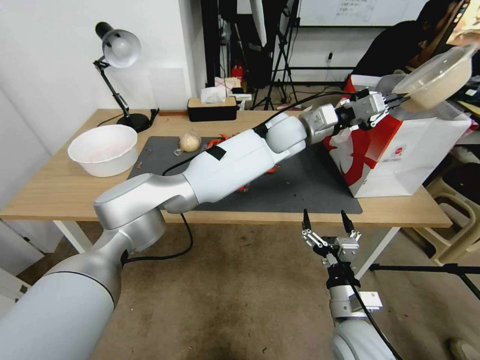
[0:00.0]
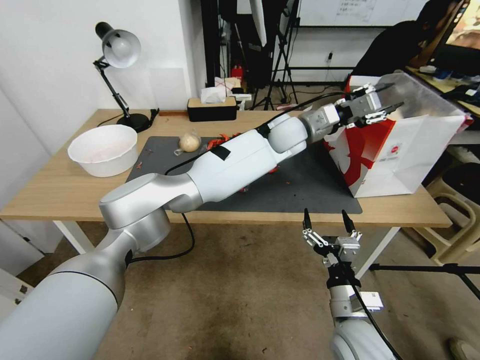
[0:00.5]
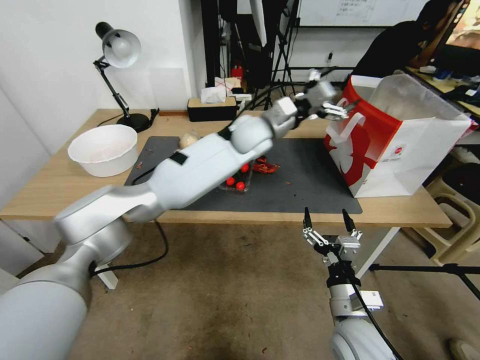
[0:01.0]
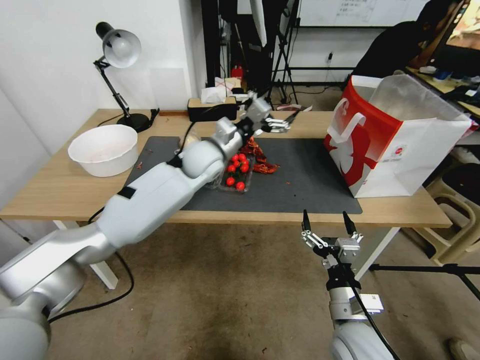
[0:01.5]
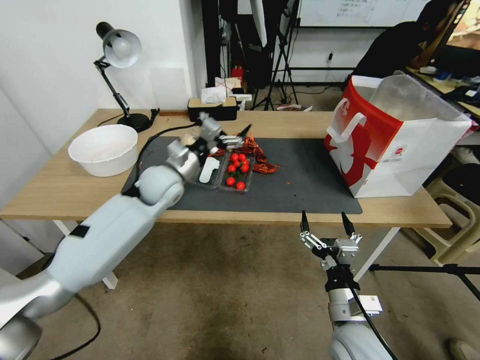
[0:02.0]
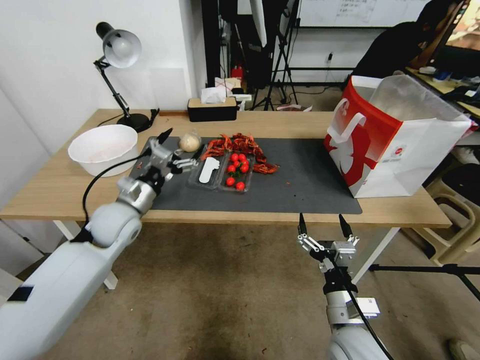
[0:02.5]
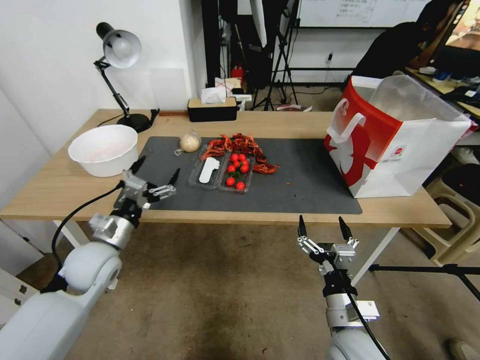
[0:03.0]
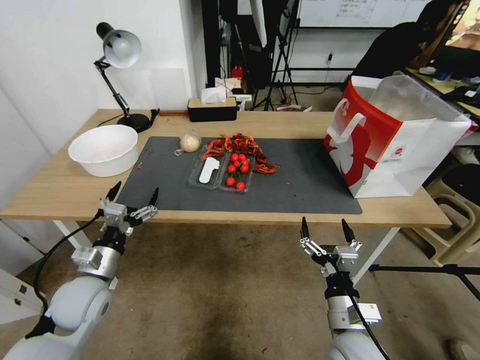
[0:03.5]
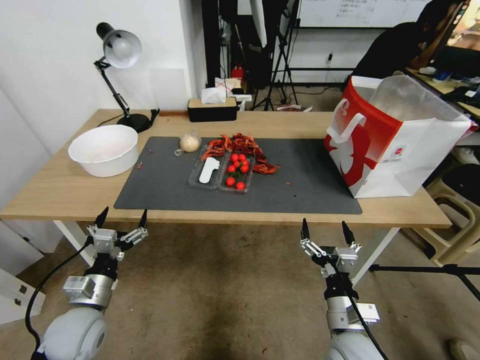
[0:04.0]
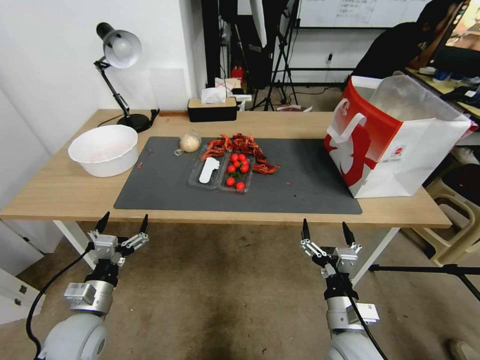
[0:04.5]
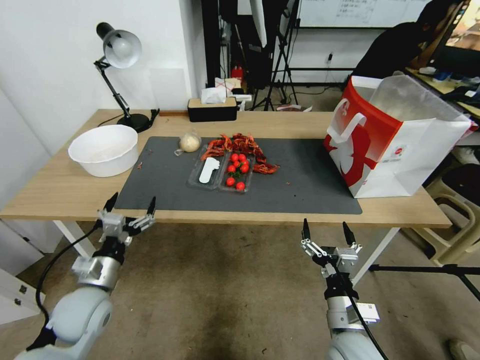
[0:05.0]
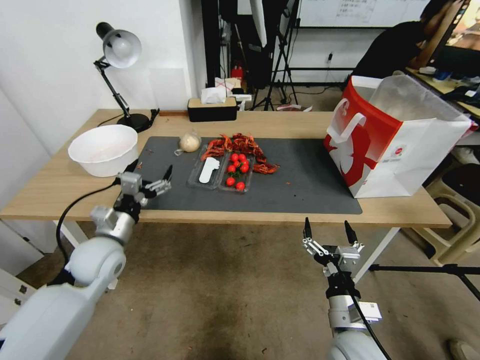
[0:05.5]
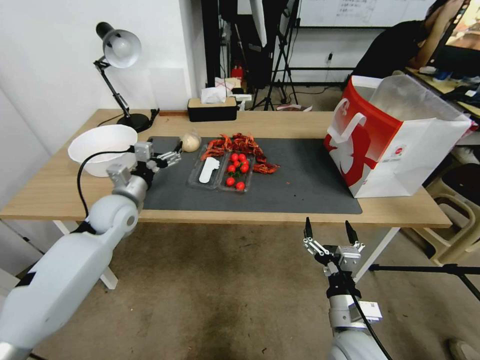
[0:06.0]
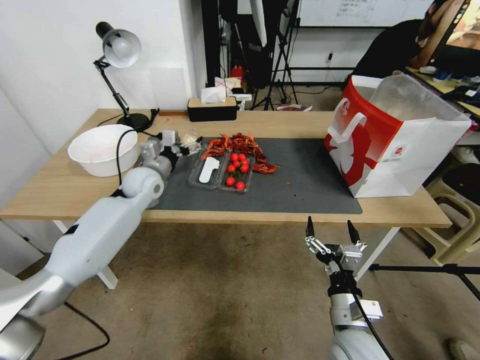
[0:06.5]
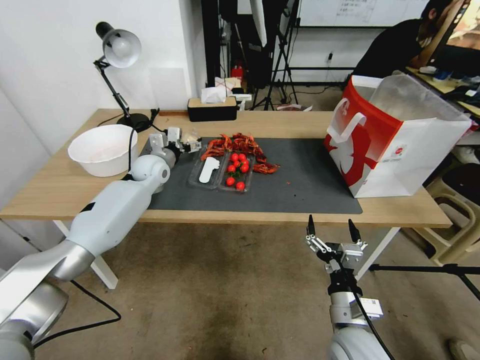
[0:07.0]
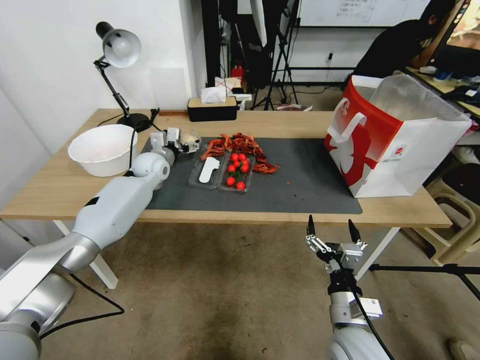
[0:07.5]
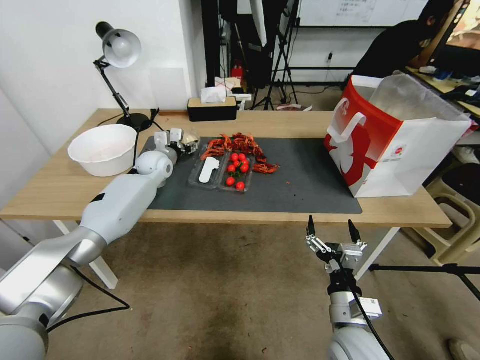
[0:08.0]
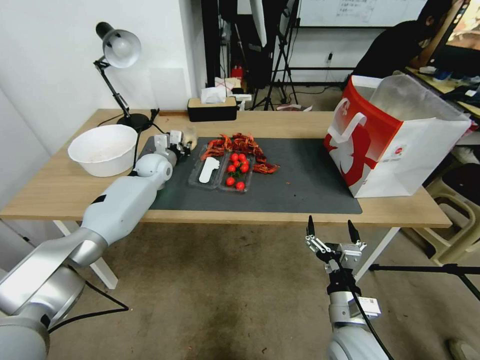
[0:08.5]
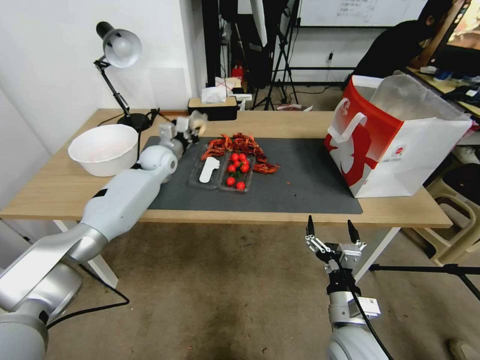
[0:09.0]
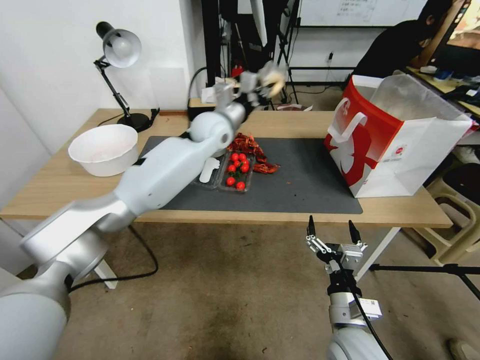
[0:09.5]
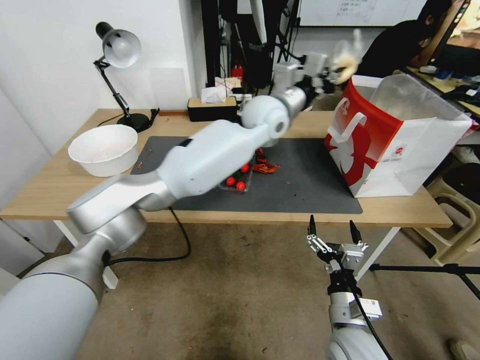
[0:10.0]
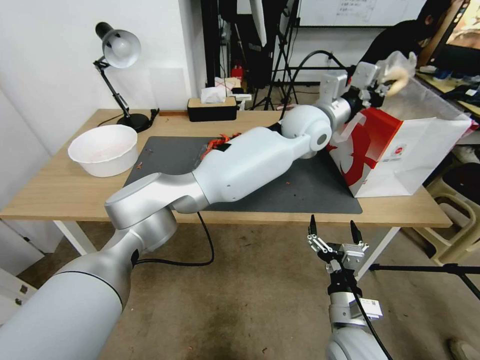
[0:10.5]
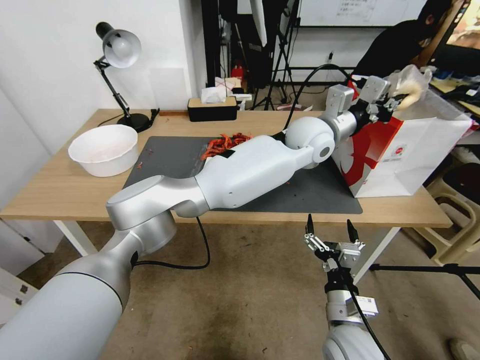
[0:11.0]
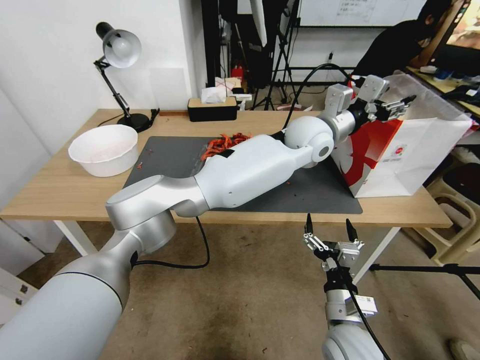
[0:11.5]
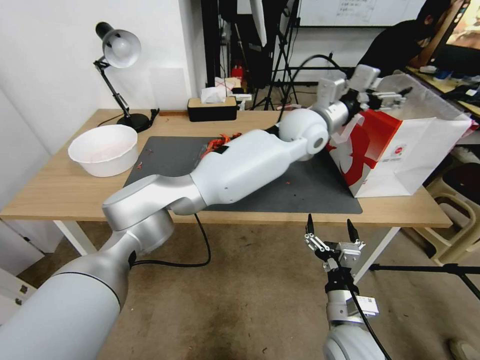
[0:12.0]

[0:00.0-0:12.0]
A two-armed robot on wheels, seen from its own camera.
0:00.0 to 0:02.0: The left gripper goes approximately 30 cm to the left, and opens its fingers.
0:02.0 to 0:04.0: The left gripper moves backward, downward and to the left, approximately 30 cm.
0:04.0 to 0:06.0: The left gripper goes some 15 cm forward and upward.
0:06.0 to 0:08.0: The left gripper moves forward, some 25 cm.
0:08.0 to 0:10.0: The left gripper travels to the right and upward by about 35 cm, and closes.
0:10.0 to 0:12.0: The left gripper heads to the right, covering approximately 10 cm, and opens up.

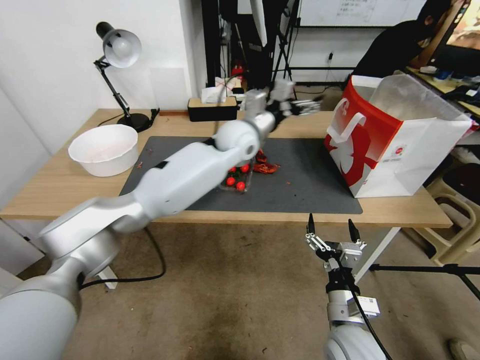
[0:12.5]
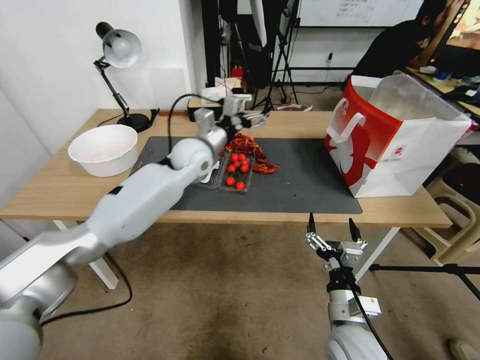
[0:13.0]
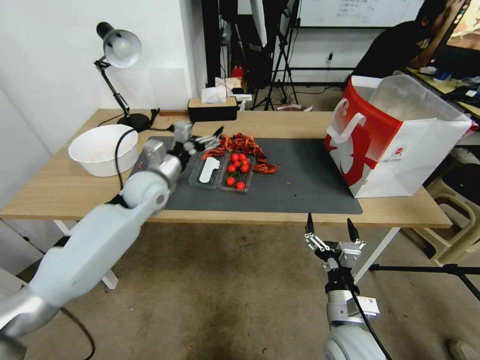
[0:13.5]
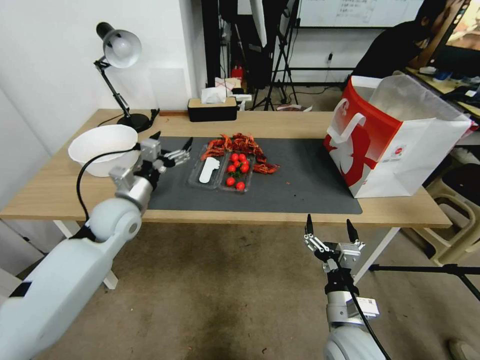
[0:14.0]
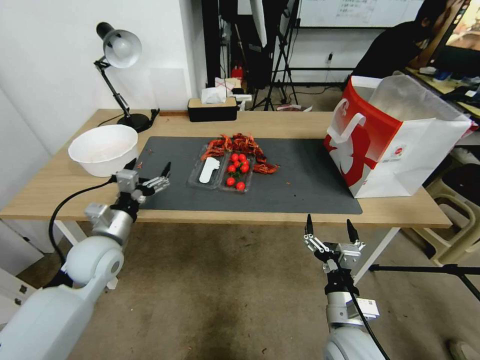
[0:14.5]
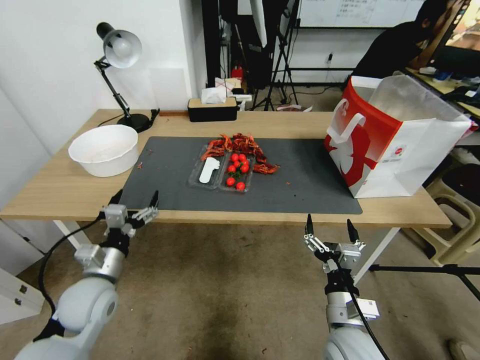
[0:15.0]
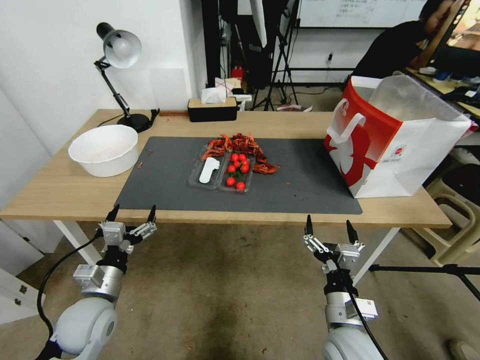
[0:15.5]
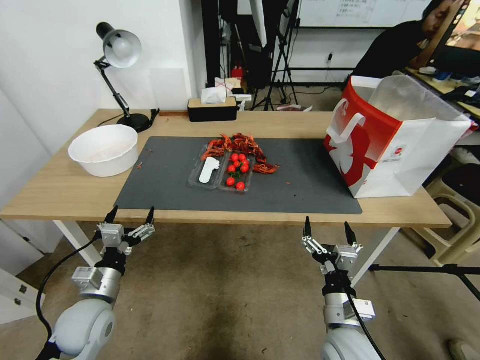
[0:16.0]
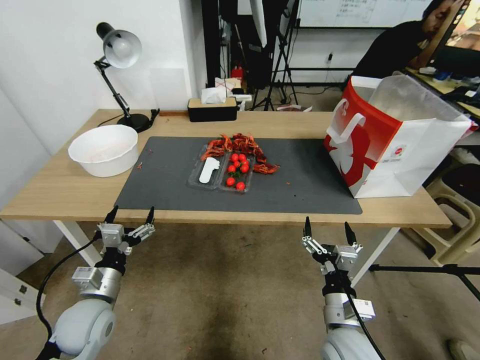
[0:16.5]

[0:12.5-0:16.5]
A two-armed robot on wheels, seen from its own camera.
0:12.5 to 0:14.5: The left gripper heads to the left, backward and downward, covering roughly 50 cm.
0:14.5 to 0:16.5: The left gripper goes some 10 cm backward and downward.

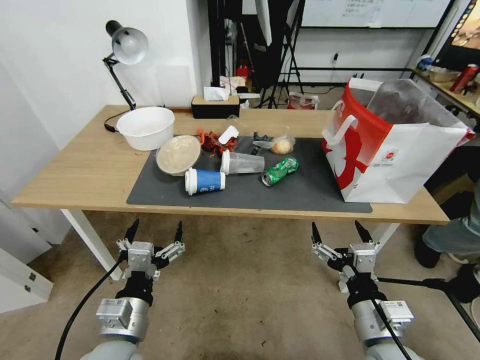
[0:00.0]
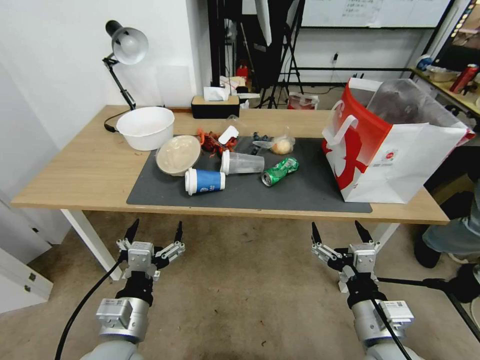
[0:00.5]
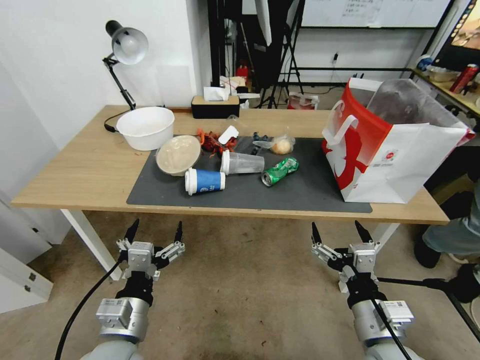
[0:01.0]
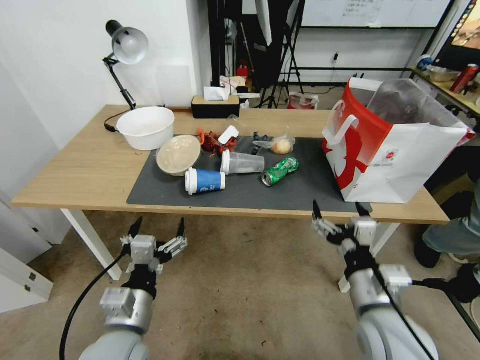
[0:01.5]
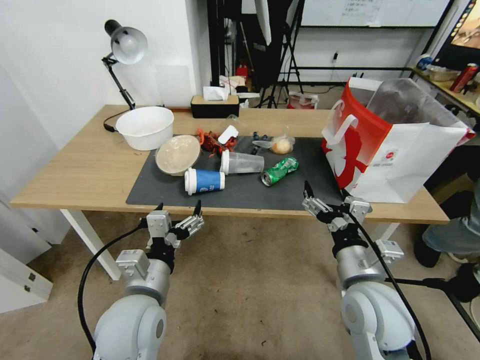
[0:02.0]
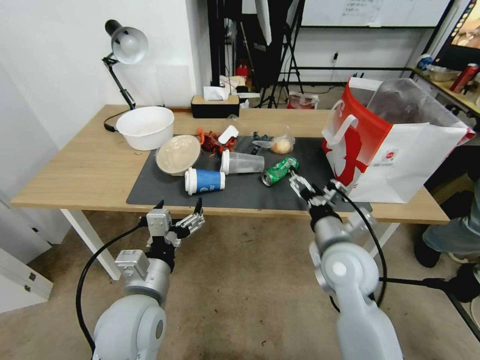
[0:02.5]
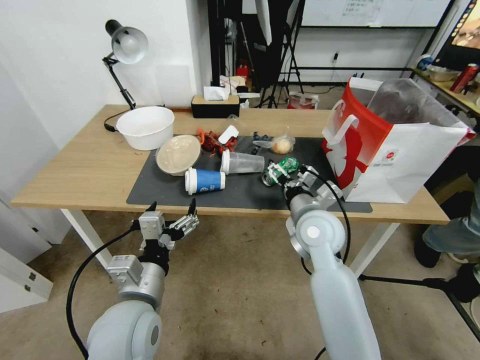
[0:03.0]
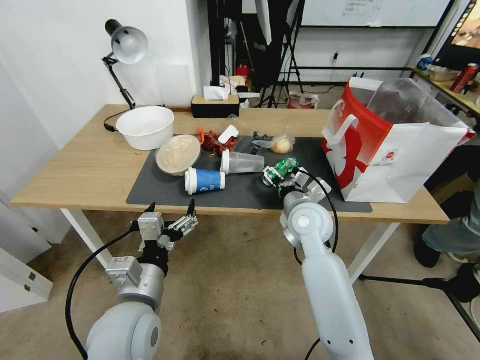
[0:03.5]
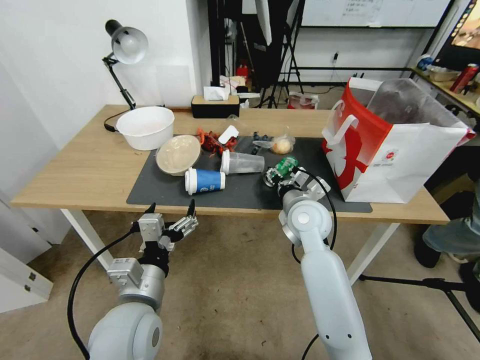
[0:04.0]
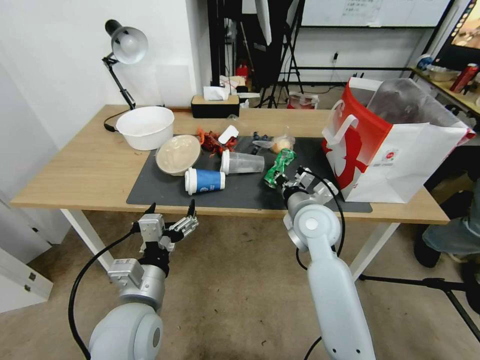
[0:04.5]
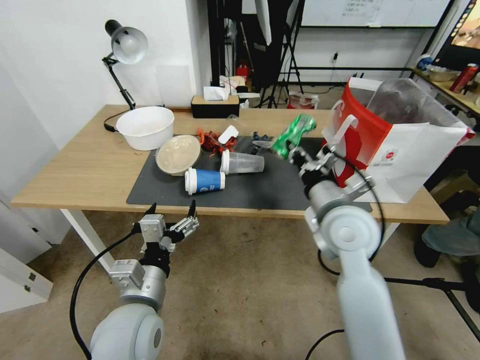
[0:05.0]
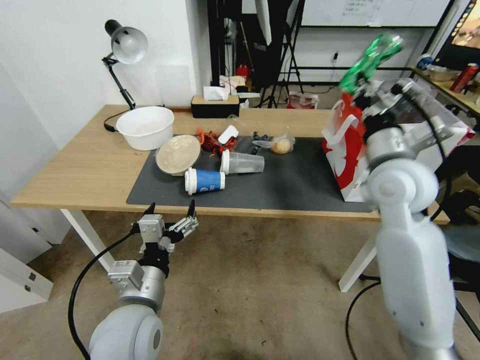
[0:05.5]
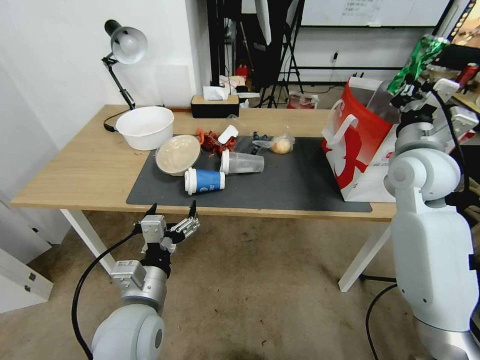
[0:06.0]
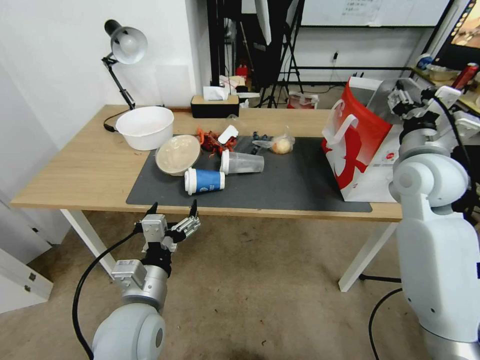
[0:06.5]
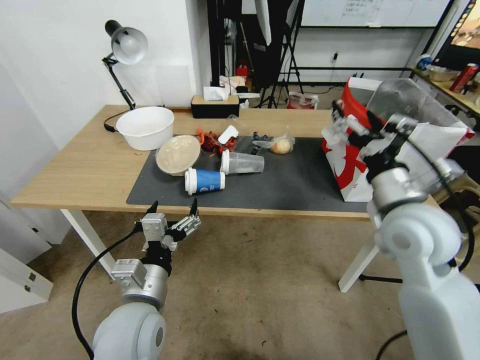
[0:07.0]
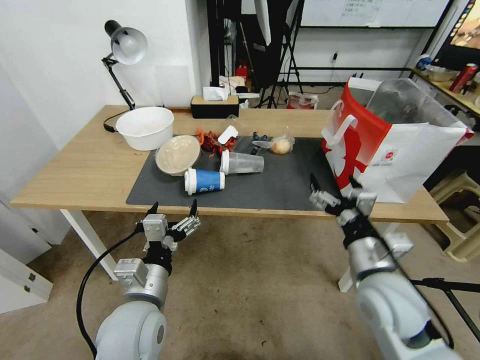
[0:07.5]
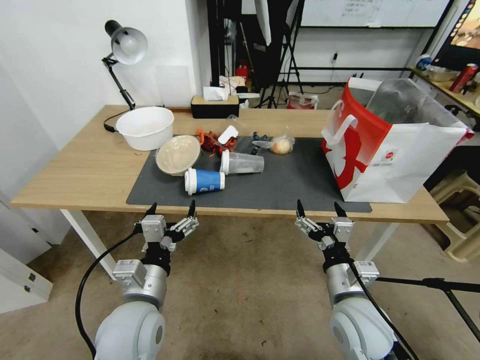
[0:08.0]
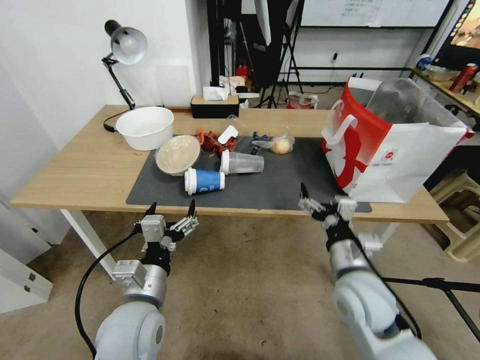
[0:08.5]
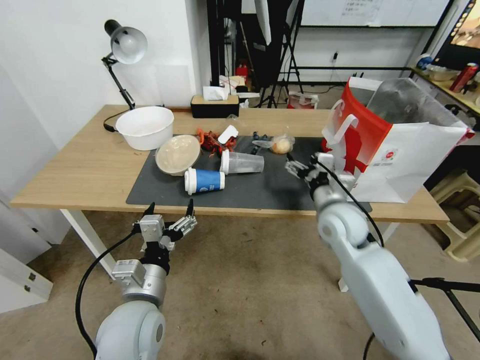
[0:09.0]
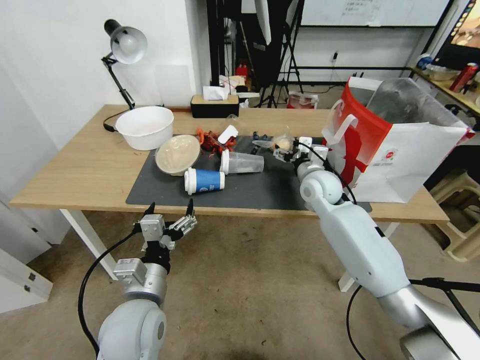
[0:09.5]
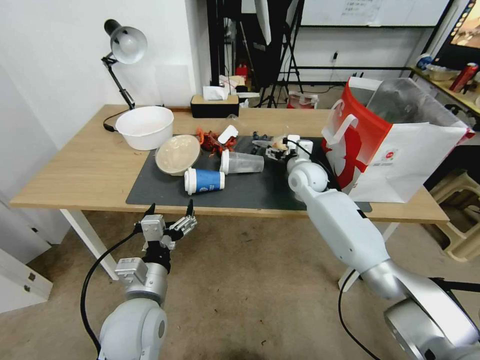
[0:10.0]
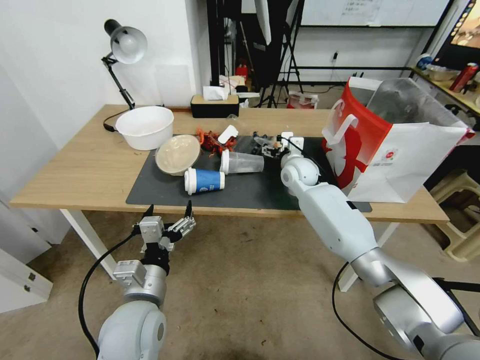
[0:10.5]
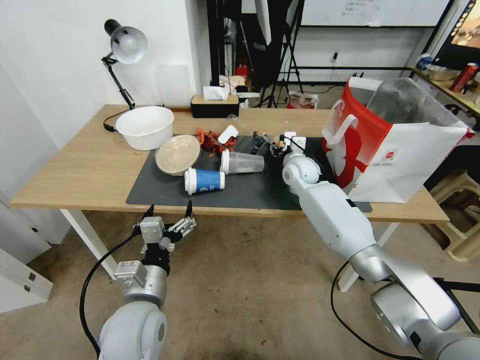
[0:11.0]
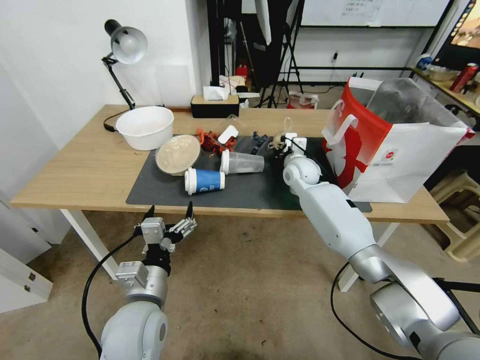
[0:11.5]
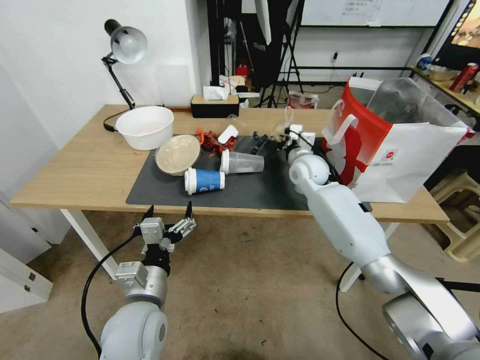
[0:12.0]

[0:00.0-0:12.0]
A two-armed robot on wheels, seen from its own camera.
0:02.0 to 0:04.0: The right gripper is displaced forward by about 20 cm, and closes up.
0:04.0 to 0:06.0: The right gripper goes about 20 cm to the right and upward, and closes its fingers.
0:06.0 to 0:08.0: The right gripper travels downward, backward and to the left by roughly 30 cm, and opens up.
0:08.0 to 0:10.0: The right gripper shifts about 35 cm forward.
0:10.0 to 0:12.0: The right gripper closes.
